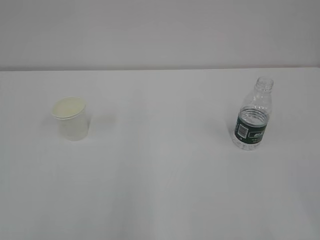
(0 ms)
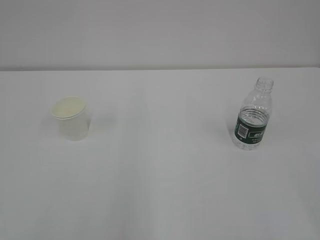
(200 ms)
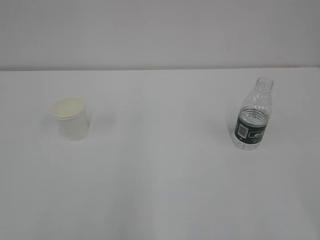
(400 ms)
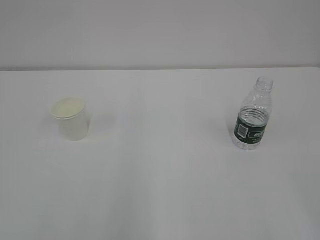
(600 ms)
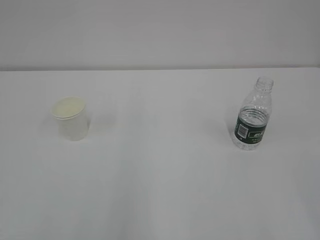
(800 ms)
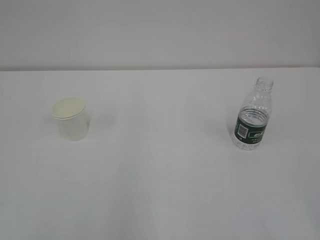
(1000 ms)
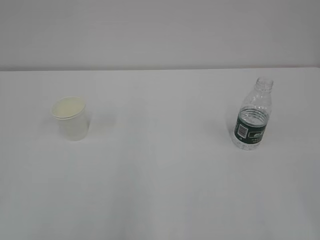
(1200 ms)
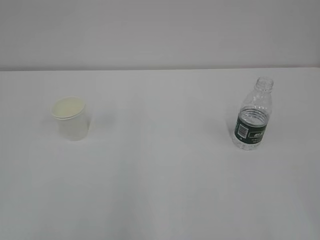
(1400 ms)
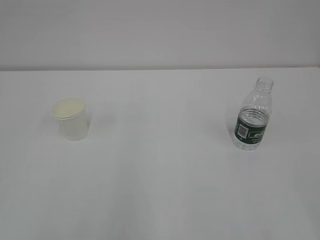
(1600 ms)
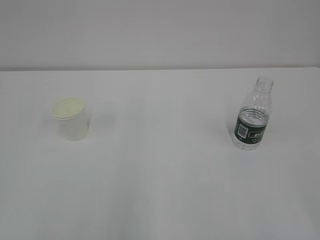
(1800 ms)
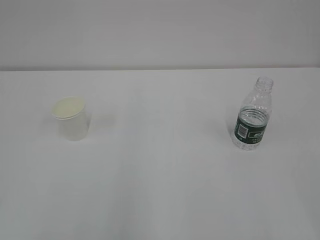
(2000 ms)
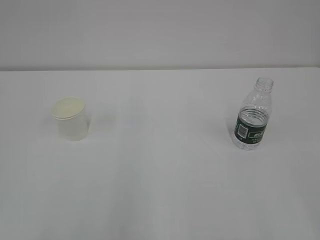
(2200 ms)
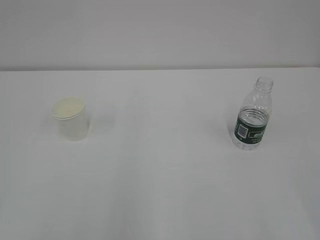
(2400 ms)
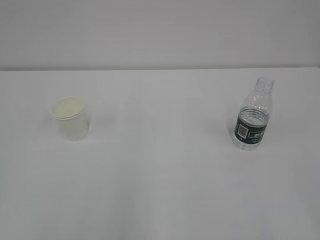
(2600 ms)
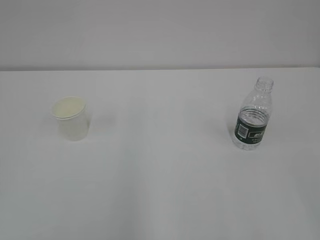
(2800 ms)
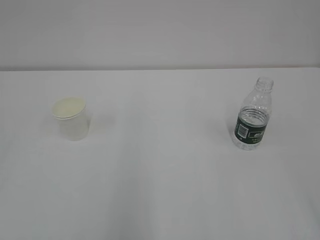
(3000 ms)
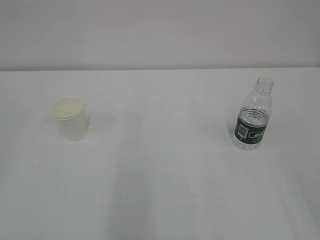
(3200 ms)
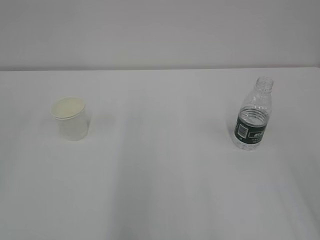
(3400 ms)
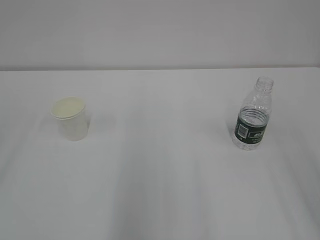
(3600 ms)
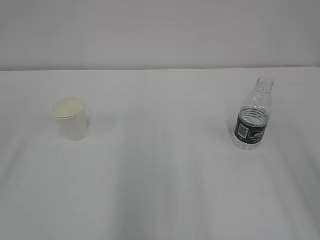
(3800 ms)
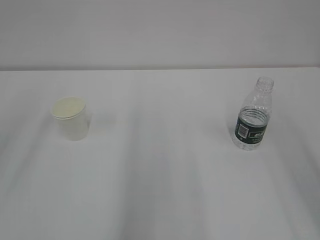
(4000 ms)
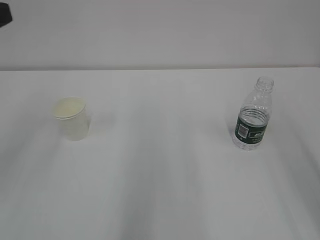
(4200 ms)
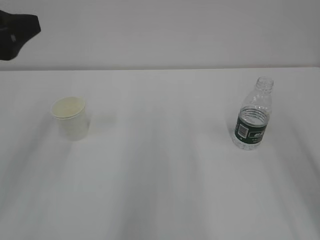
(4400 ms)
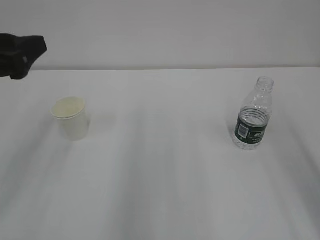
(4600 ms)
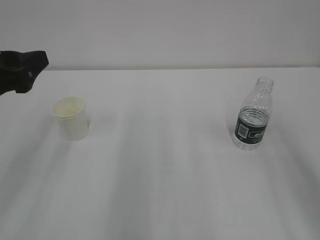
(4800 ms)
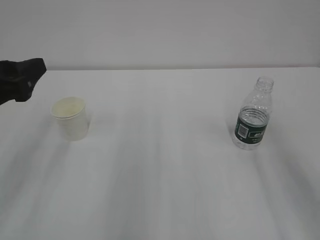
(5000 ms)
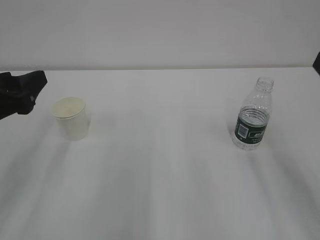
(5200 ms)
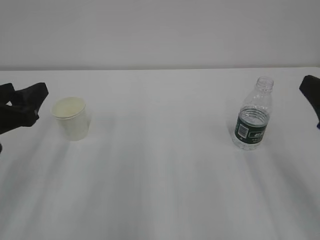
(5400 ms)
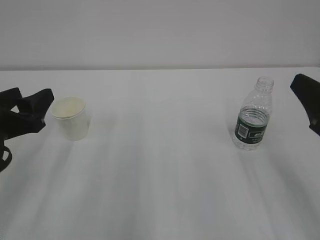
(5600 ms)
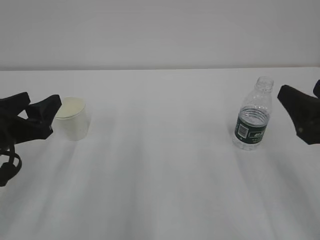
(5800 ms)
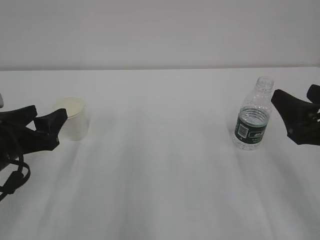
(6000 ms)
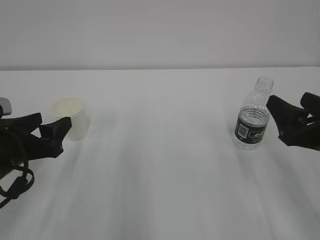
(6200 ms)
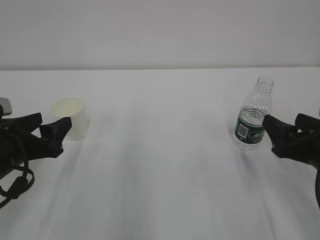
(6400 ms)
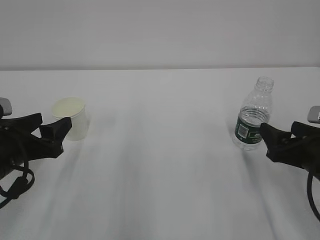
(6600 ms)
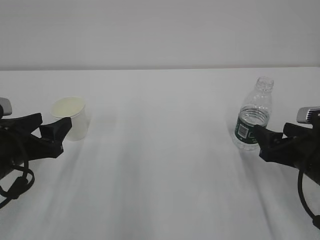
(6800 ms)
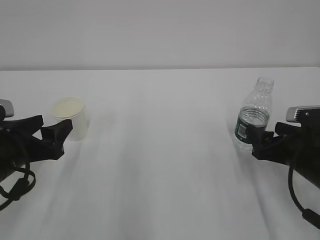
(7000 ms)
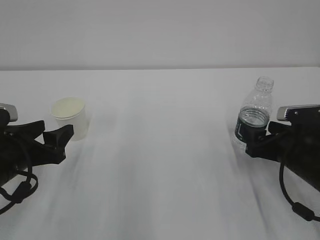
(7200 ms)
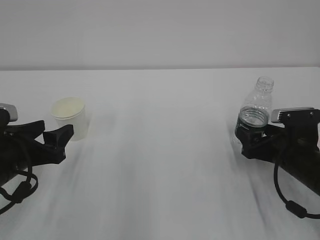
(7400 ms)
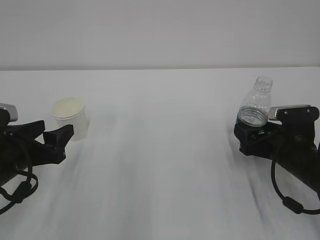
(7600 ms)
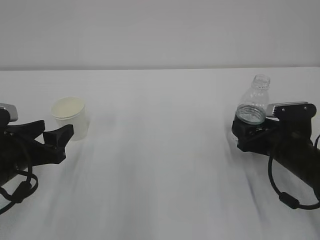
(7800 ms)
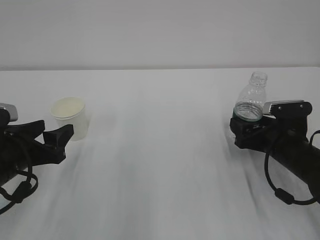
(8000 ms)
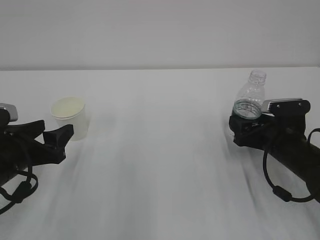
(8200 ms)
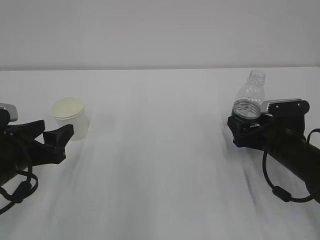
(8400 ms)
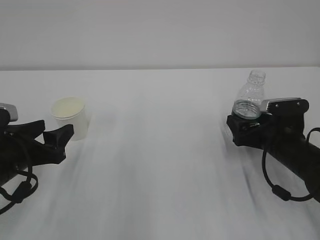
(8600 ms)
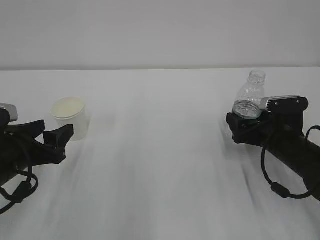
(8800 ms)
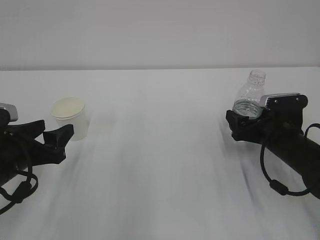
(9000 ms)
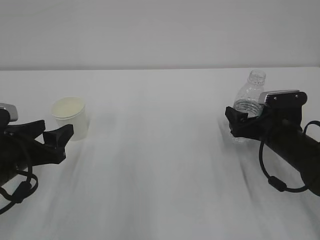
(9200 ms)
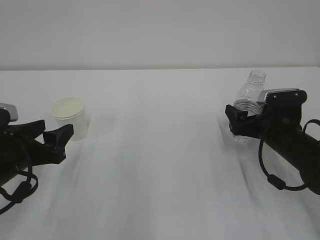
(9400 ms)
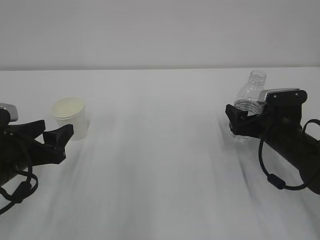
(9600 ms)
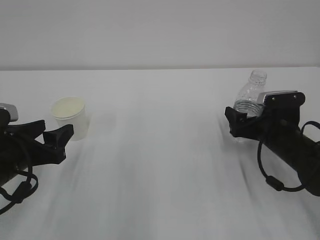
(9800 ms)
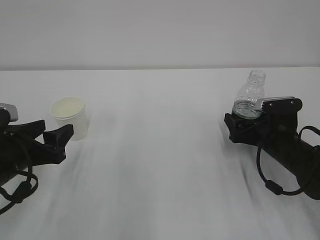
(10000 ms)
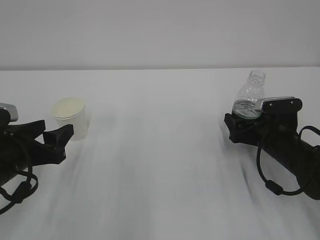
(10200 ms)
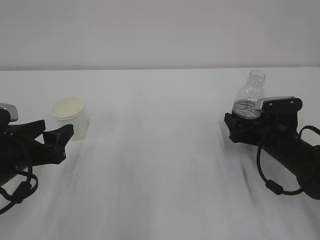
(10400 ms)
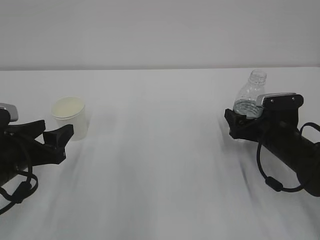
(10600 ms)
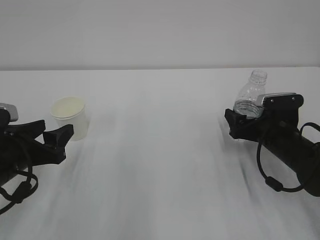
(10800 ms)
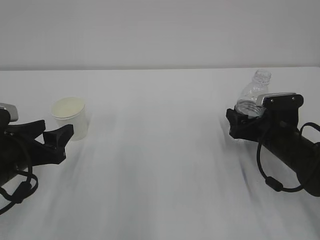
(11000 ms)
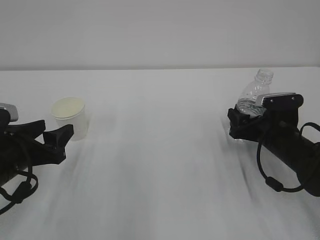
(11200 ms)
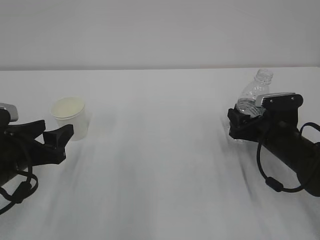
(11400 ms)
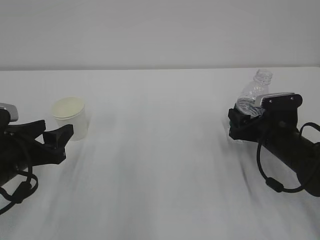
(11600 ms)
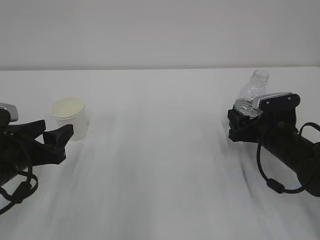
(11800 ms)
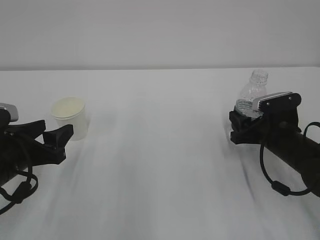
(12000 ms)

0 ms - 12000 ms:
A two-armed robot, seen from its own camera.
3000 ms - 4400 ms: The left gripper is displaced forward by roughly 20 cm, and opens its fingers.
4400 ms - 6000 ms: The right gripper travels downward and forward by some 15 cm, and opens; the left gripper is displaced downward by approximately 15 cm.
6000 ms - 7600 ms: The right gripper travels downward and forward by some 15 cm.
7600 ms - 10400 ms: The grippers make only small movements.
10400 ms - 12000 ms: The right gripper closes.

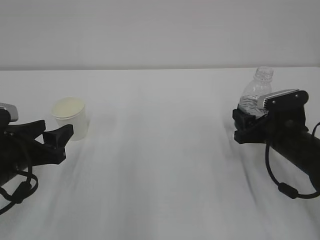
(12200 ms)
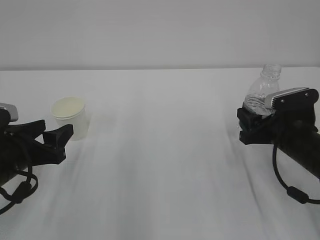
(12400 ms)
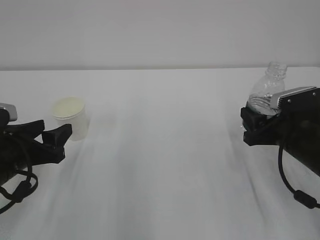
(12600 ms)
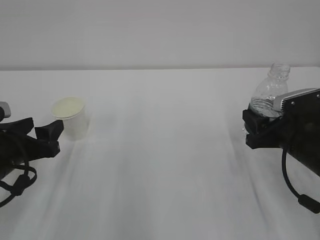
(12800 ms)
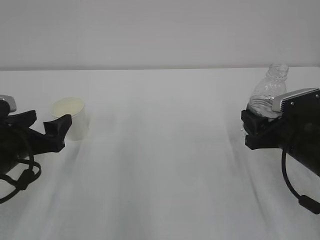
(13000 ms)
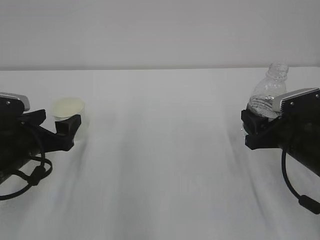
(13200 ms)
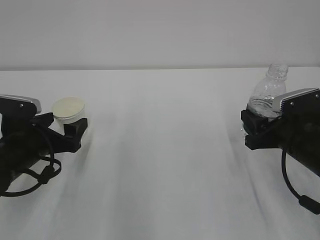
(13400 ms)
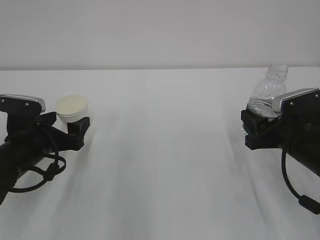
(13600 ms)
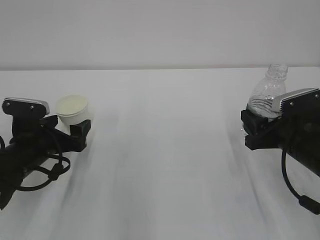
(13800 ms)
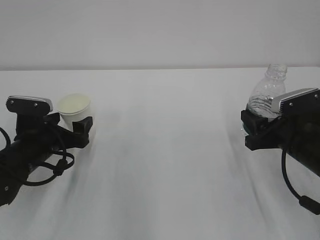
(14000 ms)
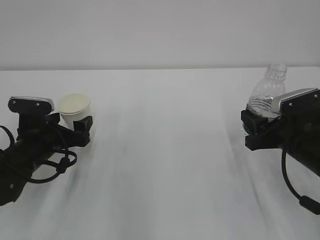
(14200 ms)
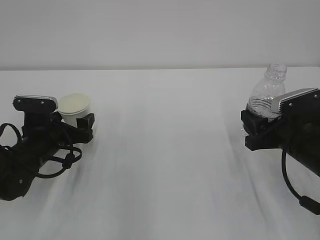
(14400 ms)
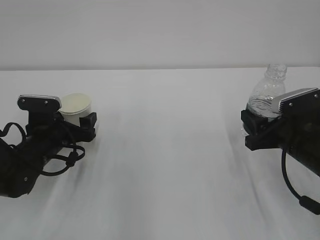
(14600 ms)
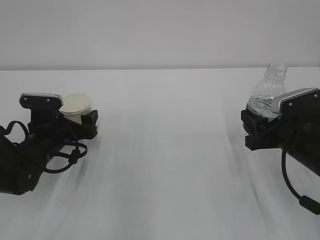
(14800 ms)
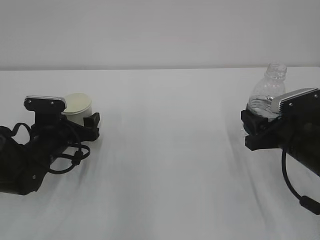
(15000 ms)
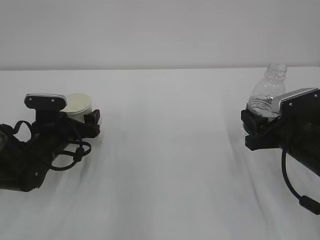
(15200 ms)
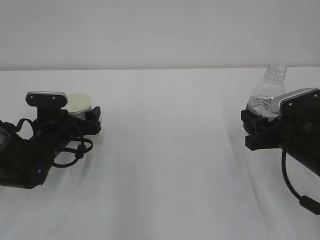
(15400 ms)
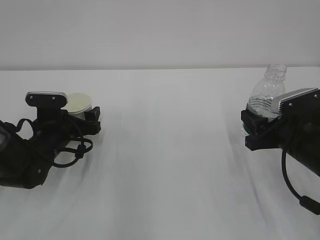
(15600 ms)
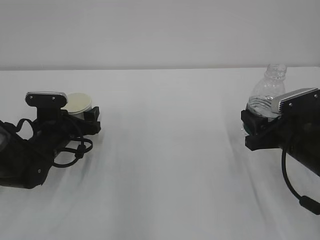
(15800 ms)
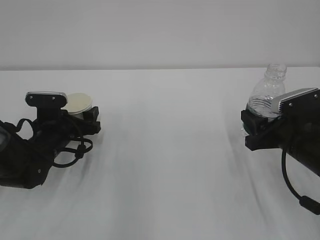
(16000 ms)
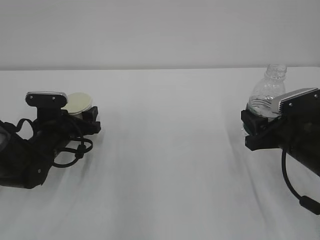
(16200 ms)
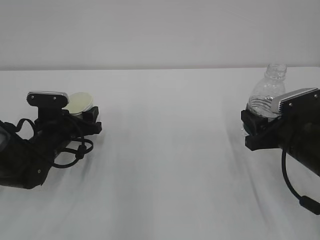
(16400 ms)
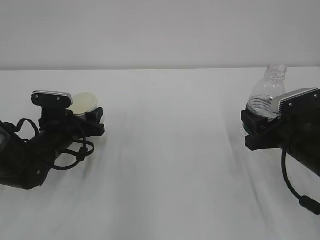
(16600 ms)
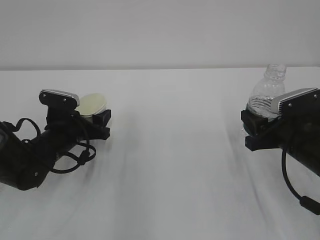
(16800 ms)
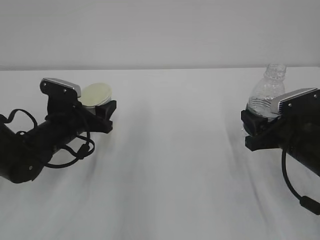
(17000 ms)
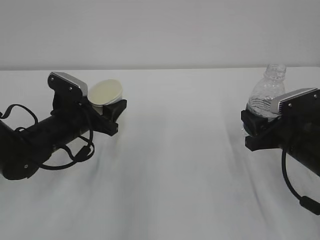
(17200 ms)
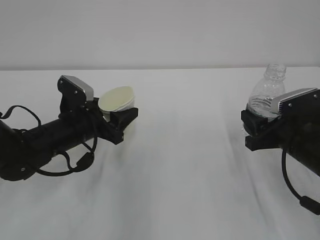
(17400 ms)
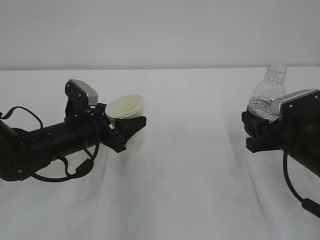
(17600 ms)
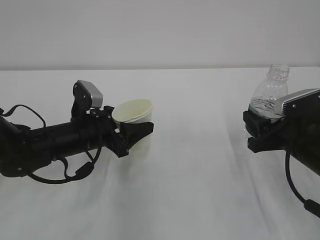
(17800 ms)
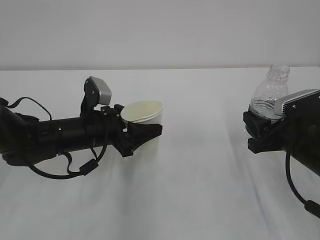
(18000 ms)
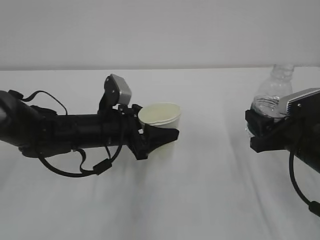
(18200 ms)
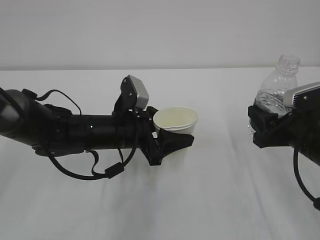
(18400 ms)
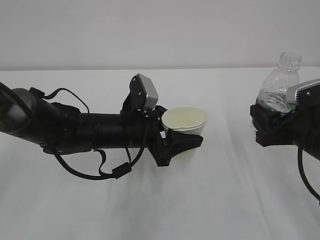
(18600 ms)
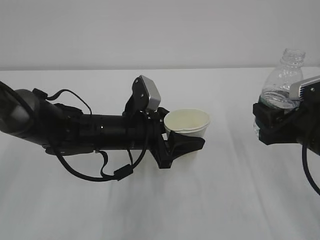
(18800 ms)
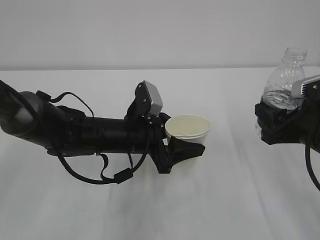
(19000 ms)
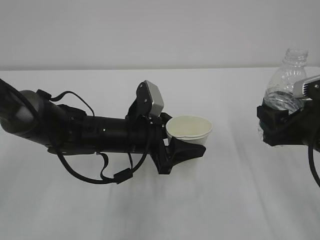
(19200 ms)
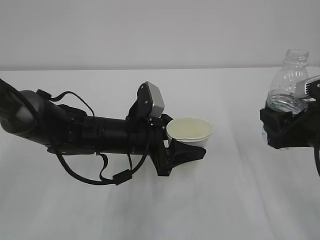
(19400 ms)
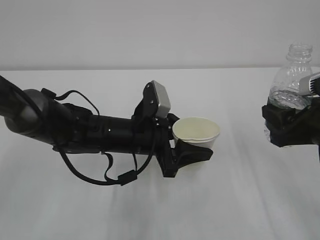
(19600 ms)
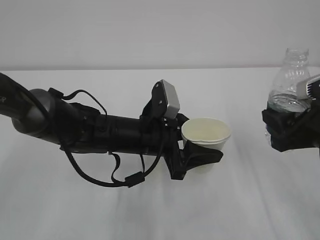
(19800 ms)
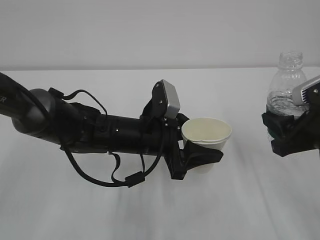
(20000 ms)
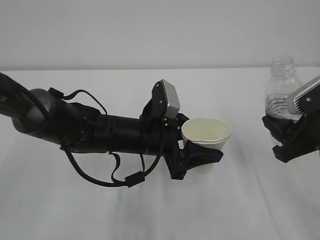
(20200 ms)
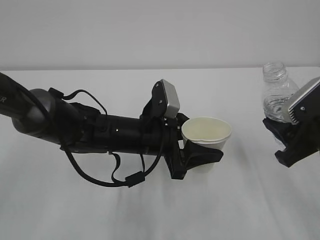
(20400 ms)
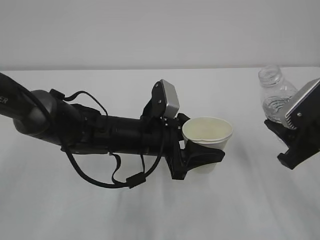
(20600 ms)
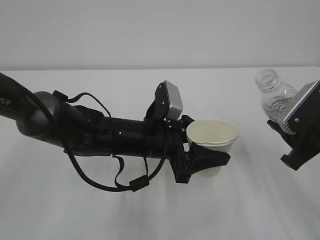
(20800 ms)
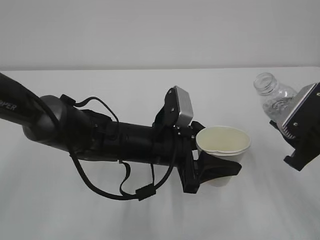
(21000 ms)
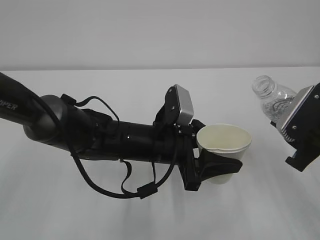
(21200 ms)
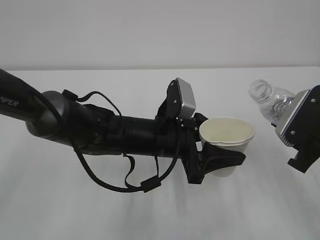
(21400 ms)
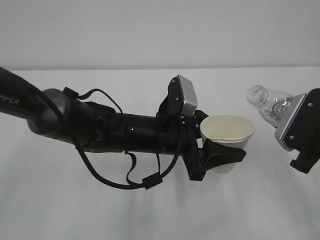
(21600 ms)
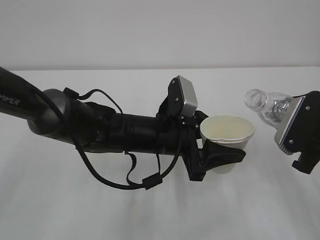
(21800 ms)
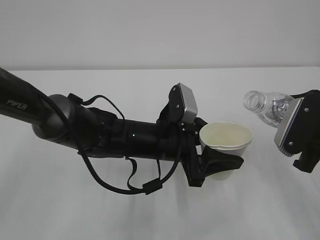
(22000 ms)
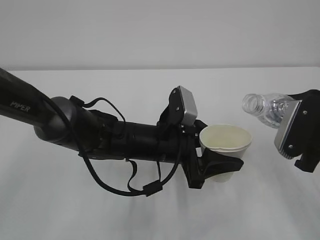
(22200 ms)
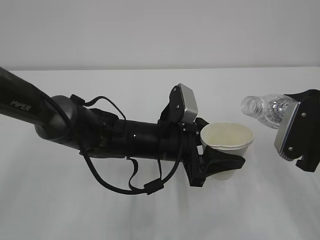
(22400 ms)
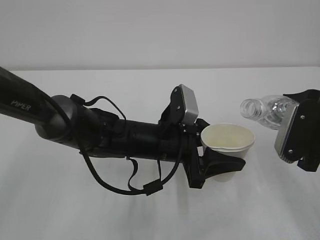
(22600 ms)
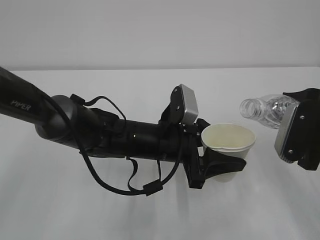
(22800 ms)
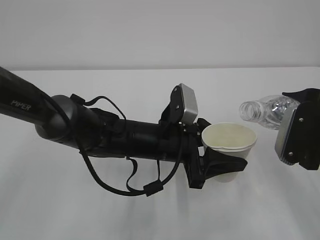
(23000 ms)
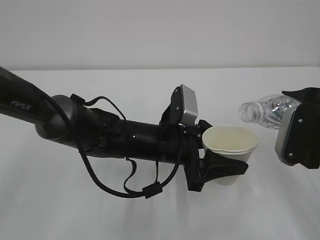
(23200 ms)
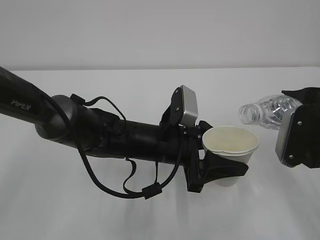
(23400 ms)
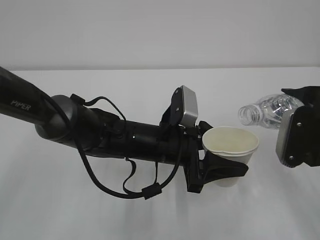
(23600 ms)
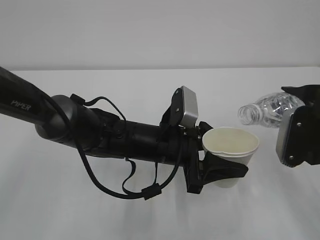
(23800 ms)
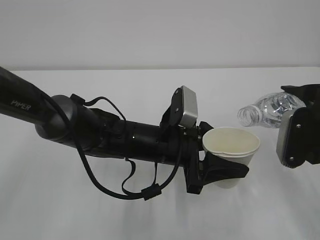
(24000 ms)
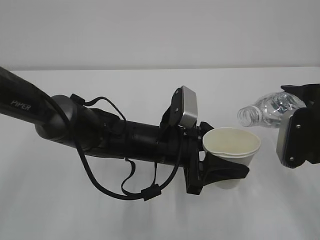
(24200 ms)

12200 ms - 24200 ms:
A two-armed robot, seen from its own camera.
12200 ms - 13800 ms: The left gripper goes approximately 5 cm forward, and opens.
13800 ms - 15200 ms: The left gripper is displaced forward by roughly 5 cm.
15200 ms - 16600 ms: The left gripper closes.
16600 ms - 18200 ms: The left gripper heads to the right and upward, covering some 10 cm.
18200 ms - 19800 ms: The left gripper is displaced to the right by about 5 cm. The right gripper is displaced upward by about 5 cm.
22600 ms - 24200 ms: The grippers stay close to where they were, moving slightly.
